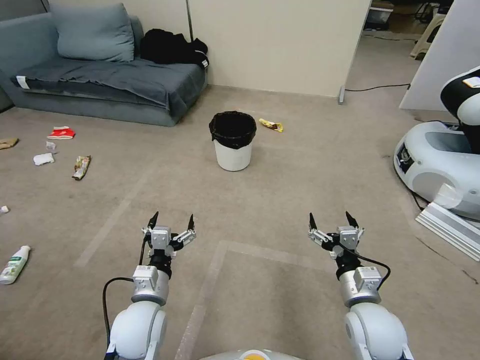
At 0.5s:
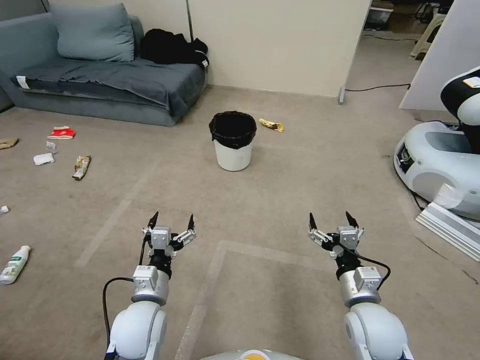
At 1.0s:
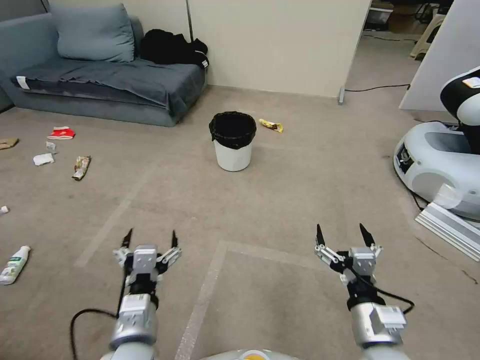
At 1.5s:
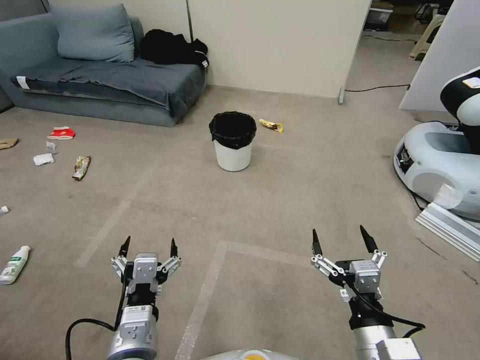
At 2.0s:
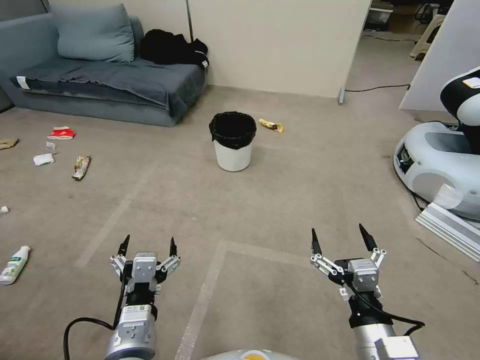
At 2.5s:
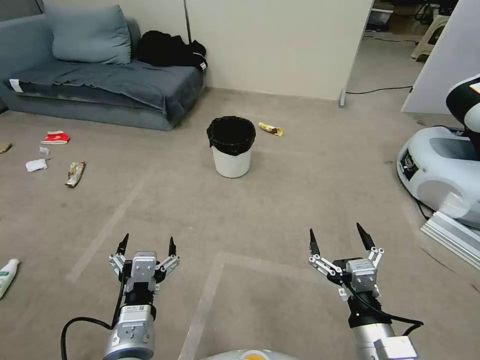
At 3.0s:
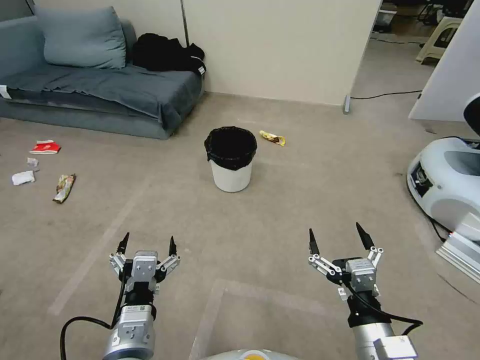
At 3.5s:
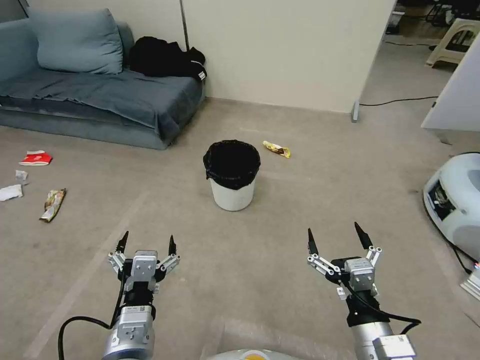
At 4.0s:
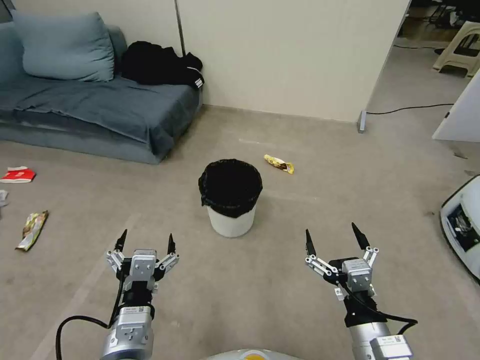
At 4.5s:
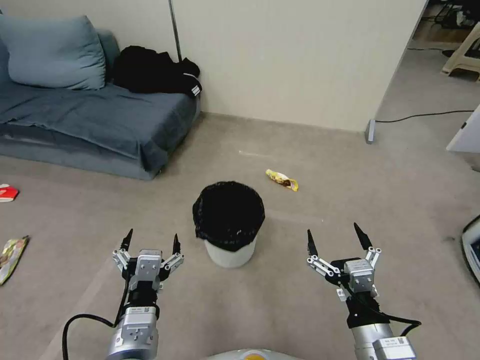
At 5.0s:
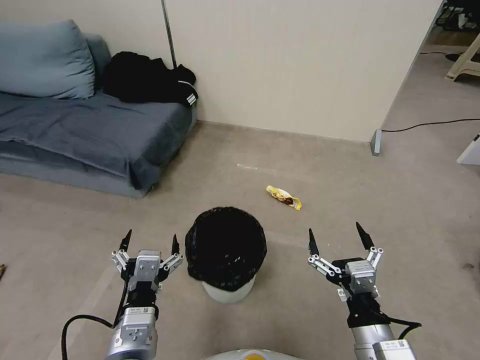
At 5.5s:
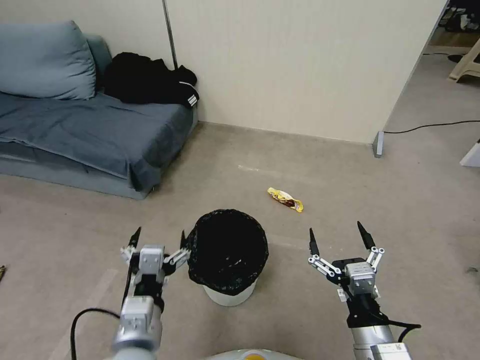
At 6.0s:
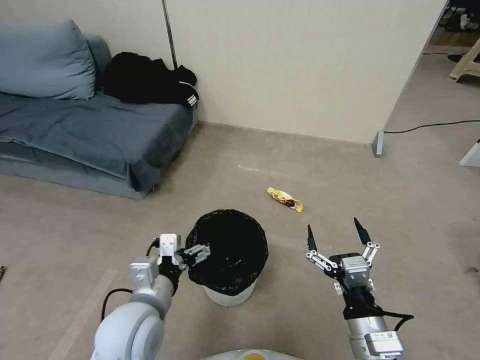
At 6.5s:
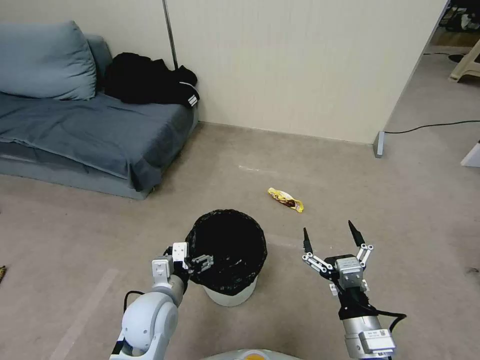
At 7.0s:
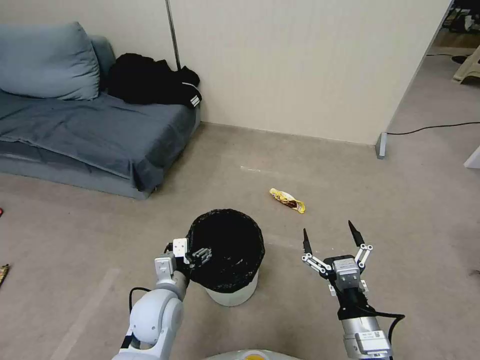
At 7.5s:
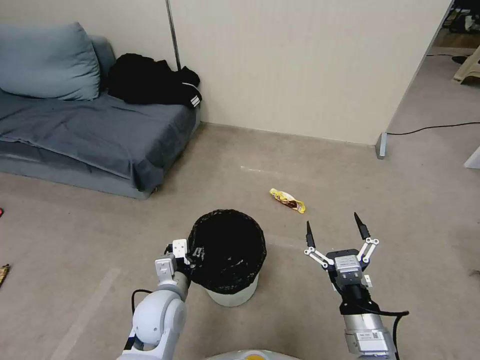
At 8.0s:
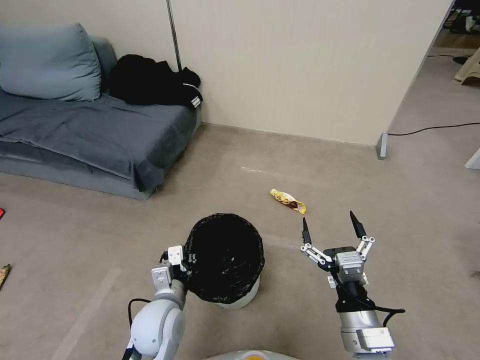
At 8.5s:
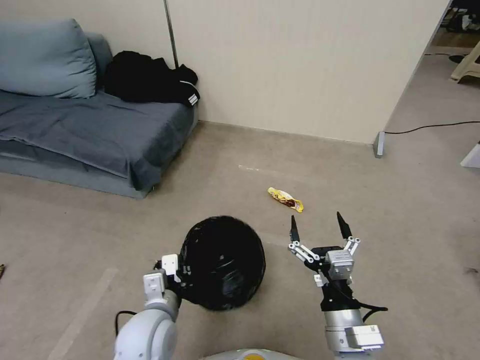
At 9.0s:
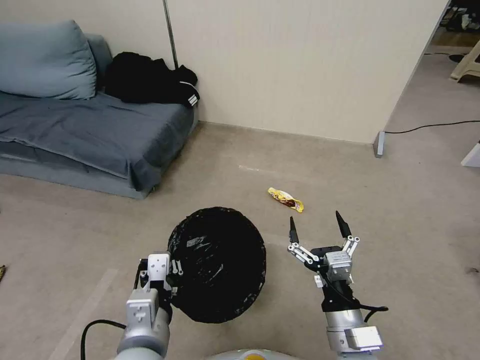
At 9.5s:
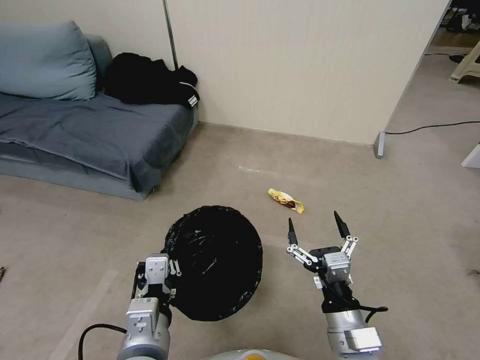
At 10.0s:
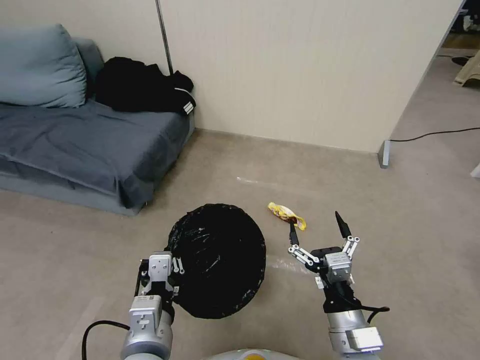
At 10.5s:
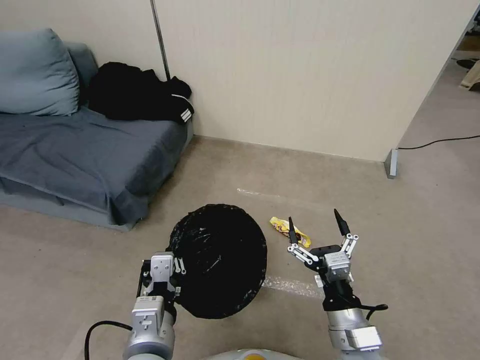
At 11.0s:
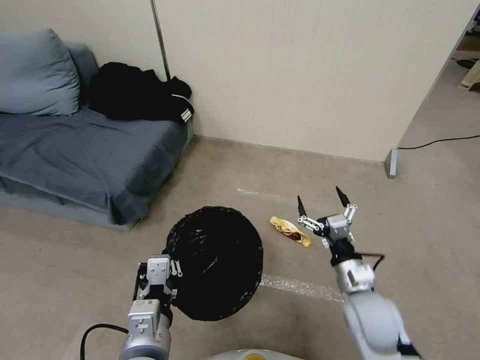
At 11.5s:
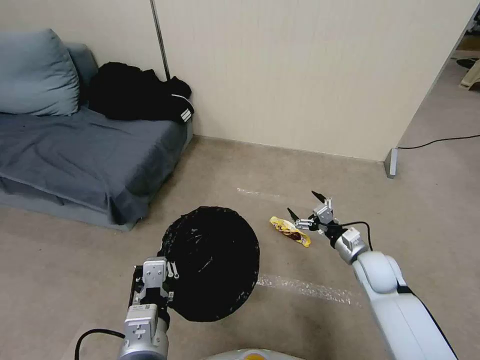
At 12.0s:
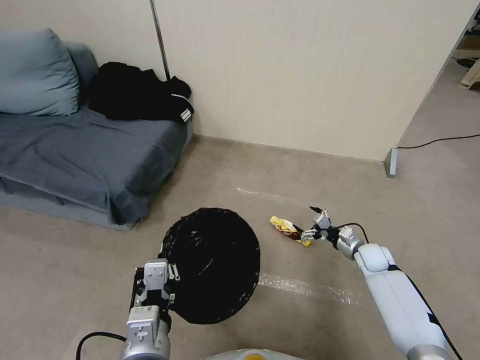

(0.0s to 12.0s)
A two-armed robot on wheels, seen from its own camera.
Task of the whole recording: Pick up the trash bin, then pick up the garbage from the floor and place it into the trash bin.
4.0s - 6.0s: The left gripper heads forward, covering approximately 10 cm.
6.0s - 8.0s: The left gripper goes approximately 10 cm downward, and closes its fingers.
8.0s - 10.0s: The left gripper travels upward and backward by some 15 cm.
10.0s - 12.0s: The right gripper travels forward, to the right and downward by roughly 35 cm.

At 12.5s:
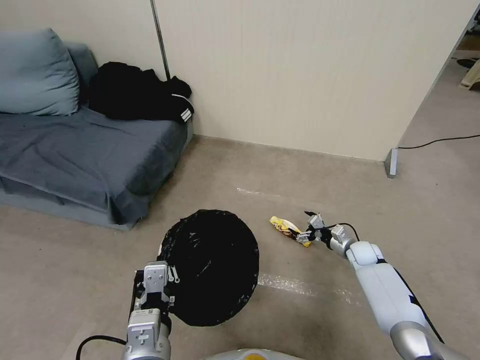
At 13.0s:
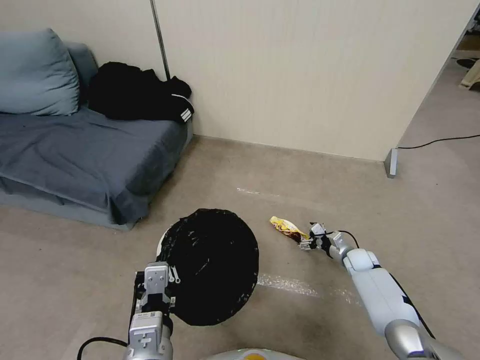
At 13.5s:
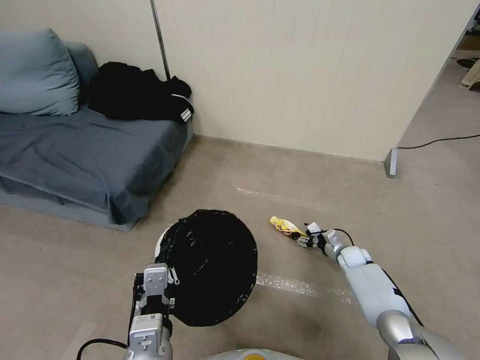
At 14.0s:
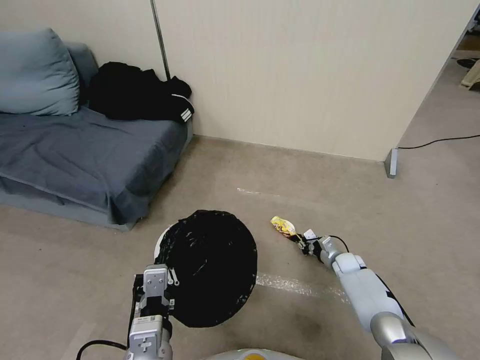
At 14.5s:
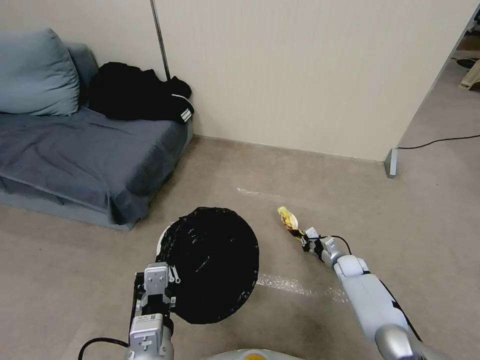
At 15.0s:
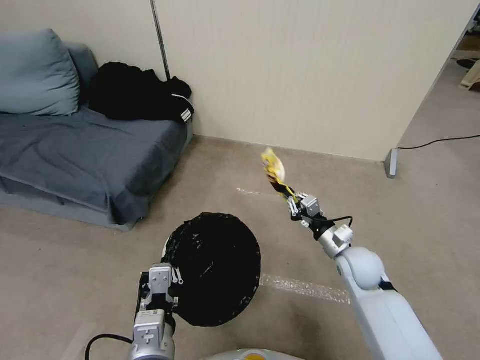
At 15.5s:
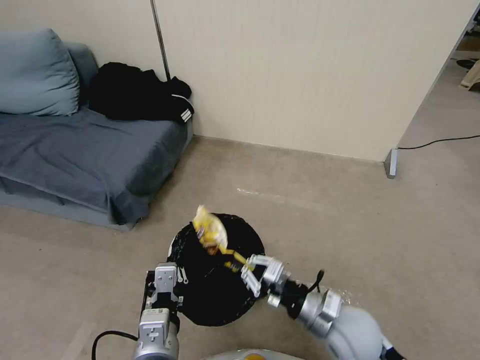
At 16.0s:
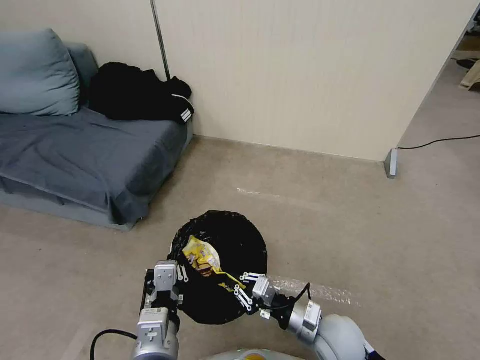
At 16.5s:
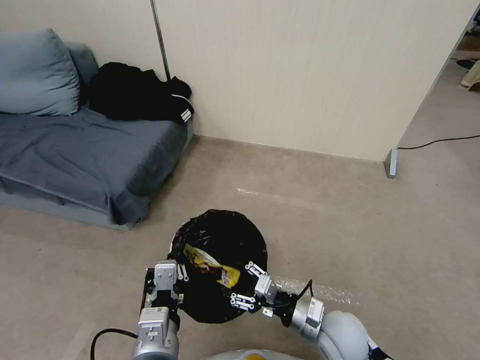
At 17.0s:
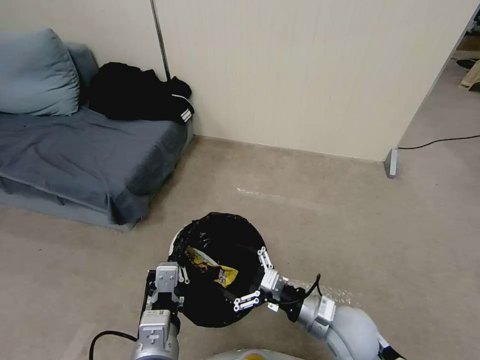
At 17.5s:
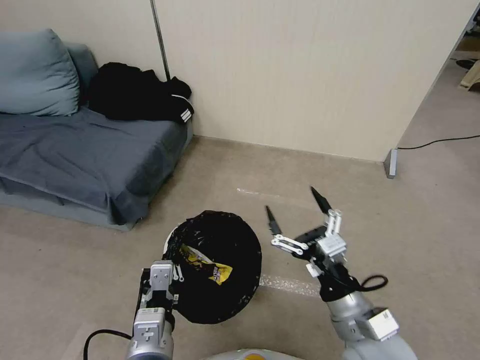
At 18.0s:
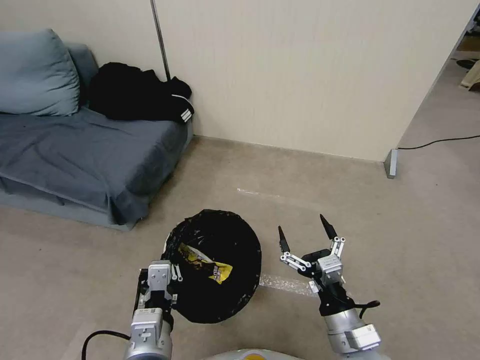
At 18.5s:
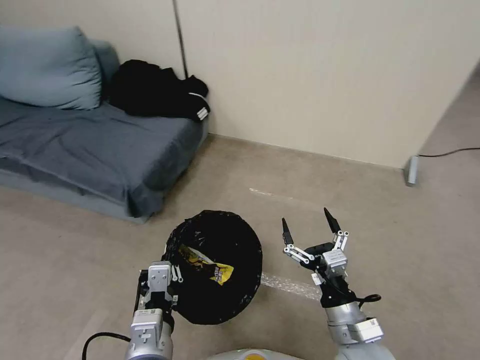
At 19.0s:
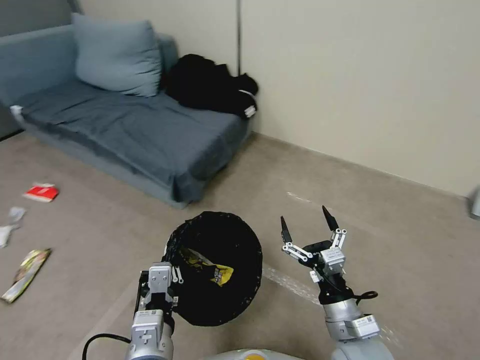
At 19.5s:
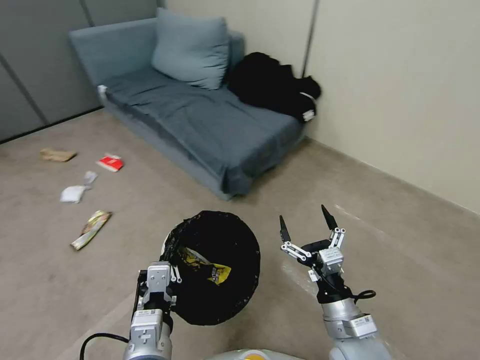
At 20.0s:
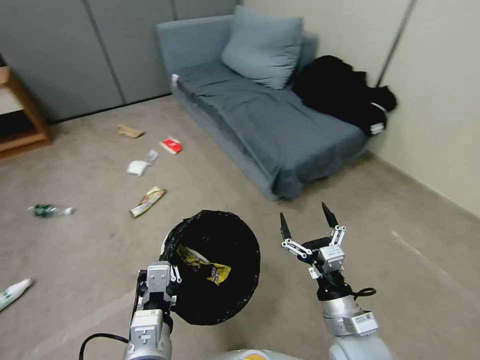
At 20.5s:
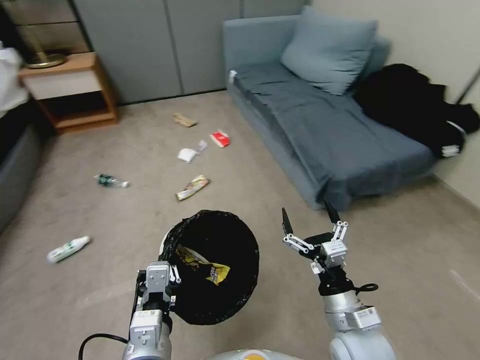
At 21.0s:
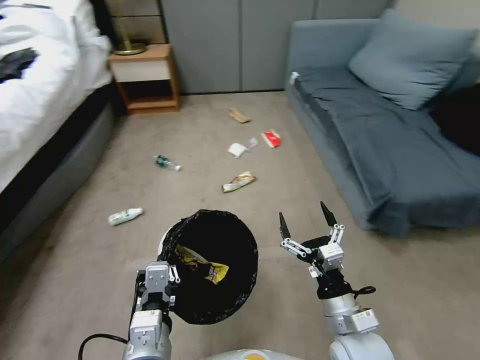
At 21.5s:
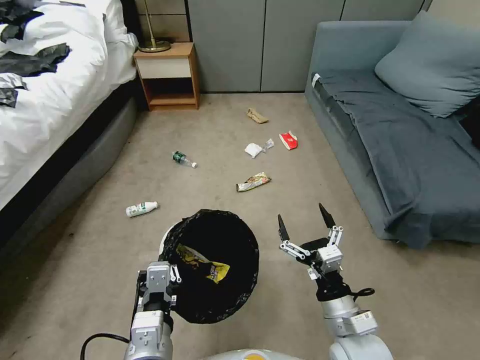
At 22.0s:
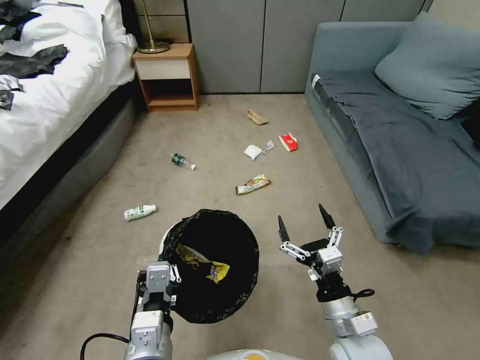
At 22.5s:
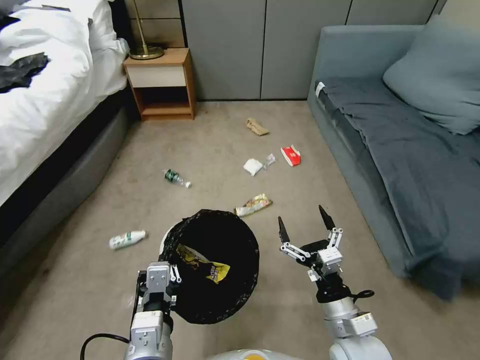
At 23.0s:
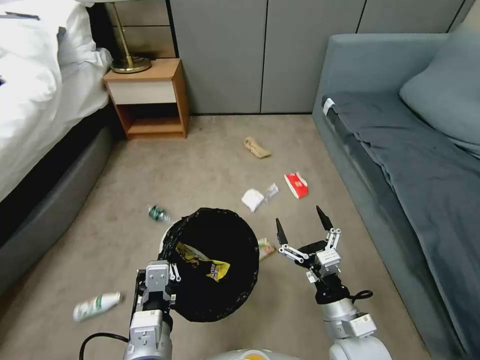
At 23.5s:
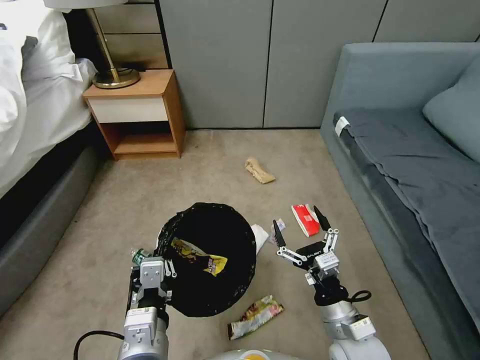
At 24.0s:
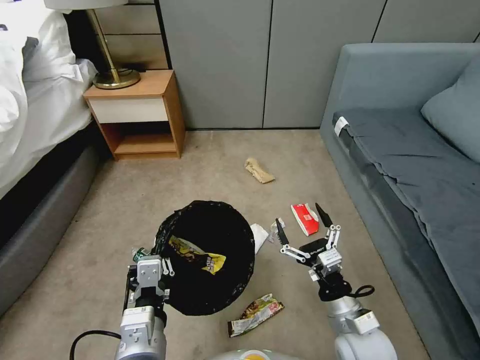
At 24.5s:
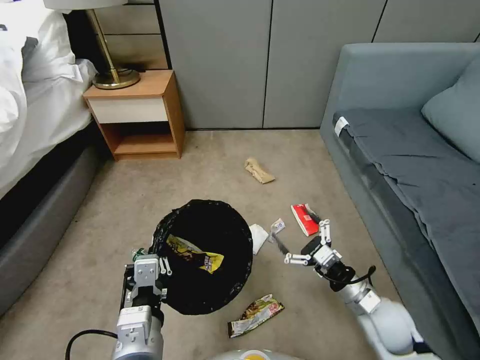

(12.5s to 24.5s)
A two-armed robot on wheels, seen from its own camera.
Task of the whole recording: Pick up the trash bin, then pick up the garbage from the floor and place it into the trash bin.
12.5s - 14.5s: The right gripper moves downward, roughly 5 cm, and closes up.
14.5s - 16.5s: The right gripper moves backward, upward and to the left, approximately 30 cm, and opens its fingers.
16.5s - 18.5s: The right gripper travels upward and backward by roughly 10 cm, and opens its fingers.
22.5s - 24.5s: The right gripper is displaced to the right and forward by about 10 cm.

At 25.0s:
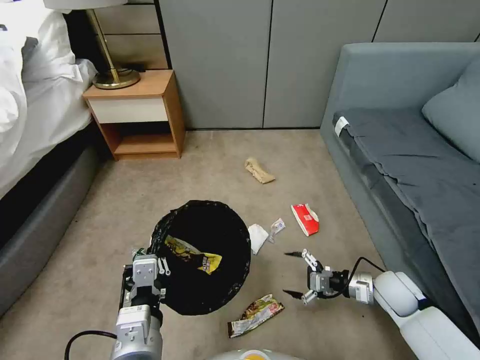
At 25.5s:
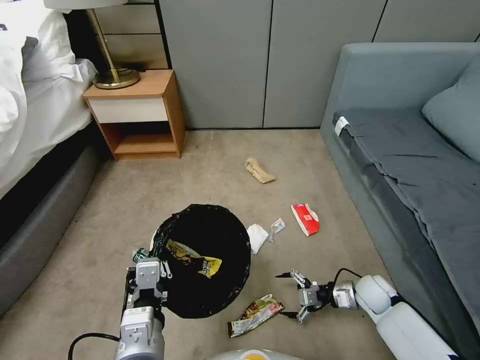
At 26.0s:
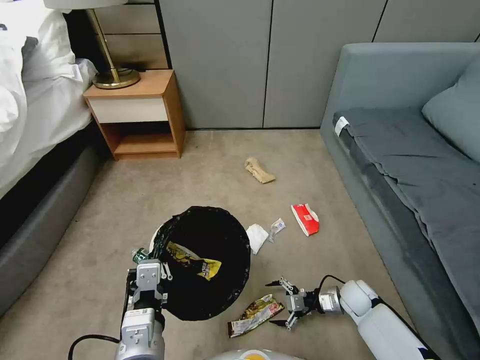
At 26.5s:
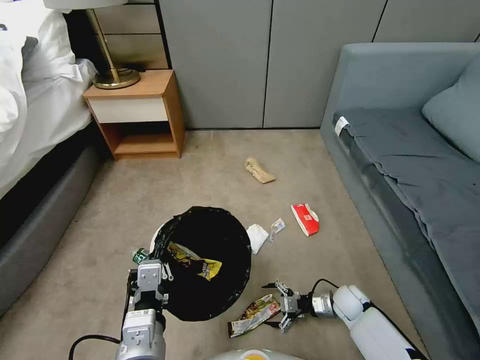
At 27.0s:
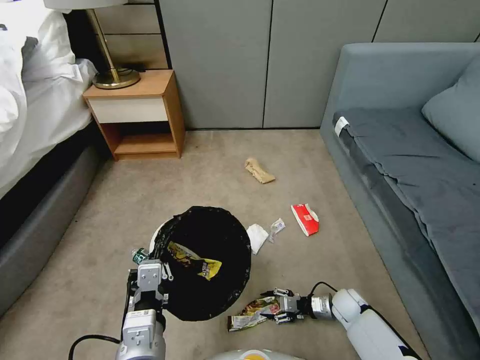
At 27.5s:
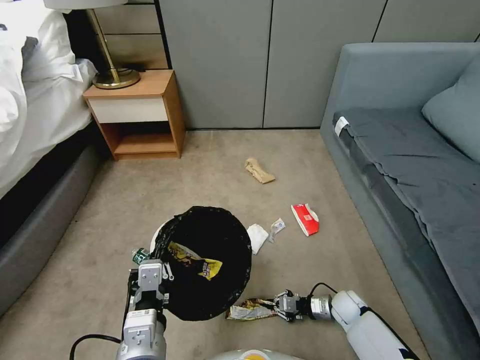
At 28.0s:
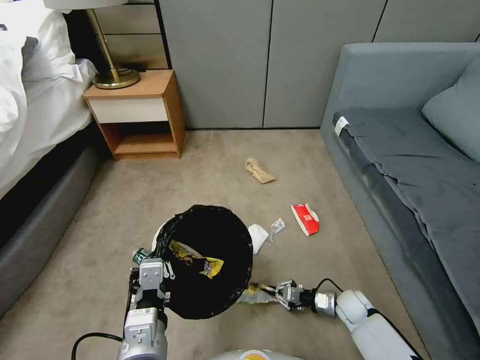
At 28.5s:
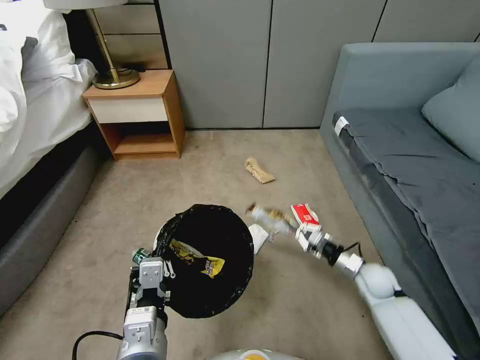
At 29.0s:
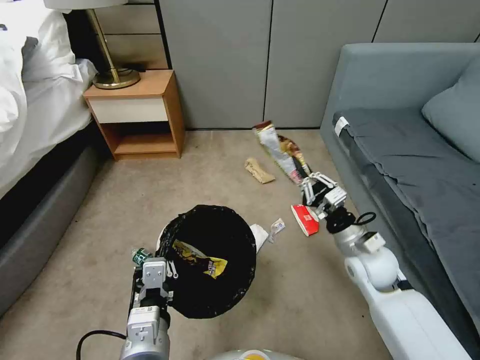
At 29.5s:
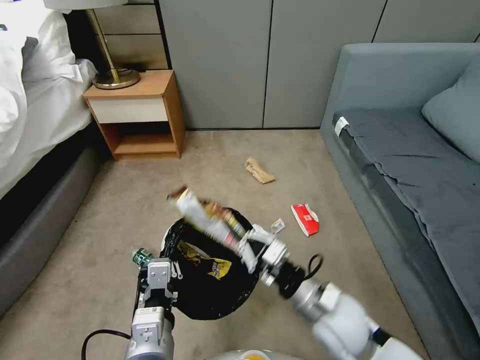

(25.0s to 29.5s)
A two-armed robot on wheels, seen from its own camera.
Task of the whole recording: Pick up the trash bin, then pick up the garbage from the floor and place it into the trash bin.
25.0s - 27.0s: The right gripper shifts about 15 cm downward, and closes.
27.0s - 29.5s: The right gripper moves upward and to the left, some 30 cm, and closes its fingers.
